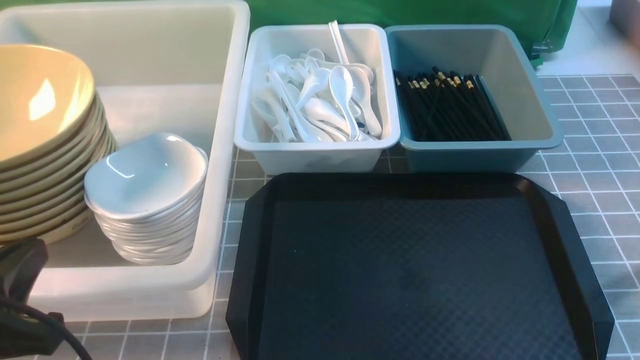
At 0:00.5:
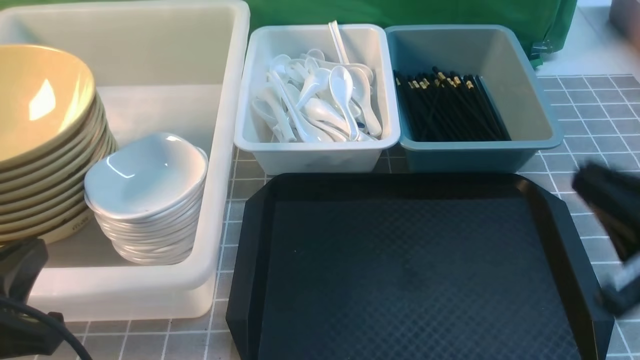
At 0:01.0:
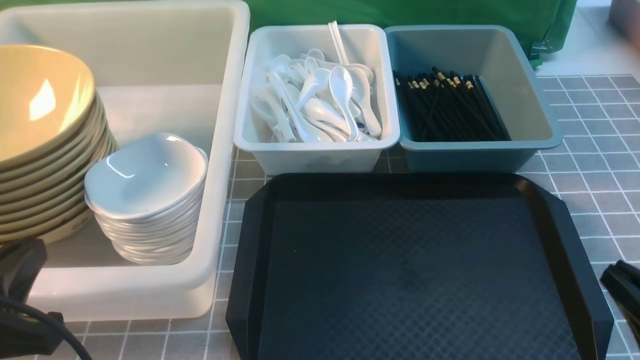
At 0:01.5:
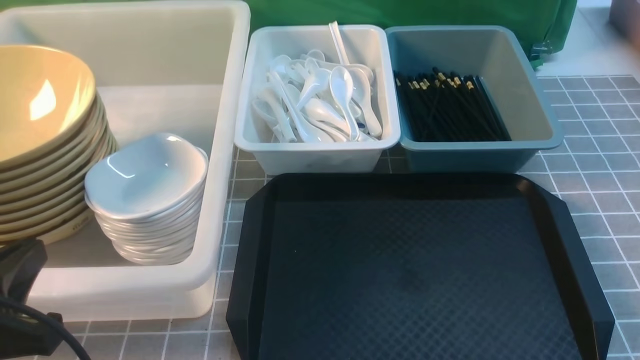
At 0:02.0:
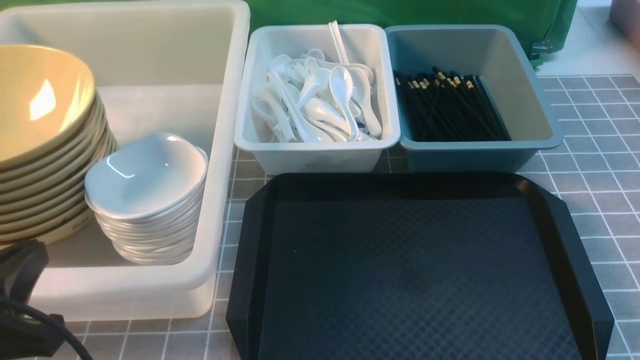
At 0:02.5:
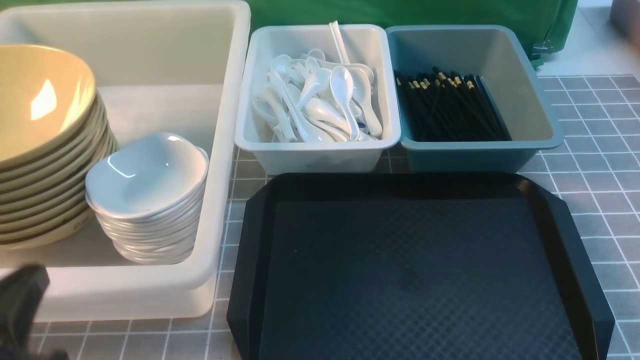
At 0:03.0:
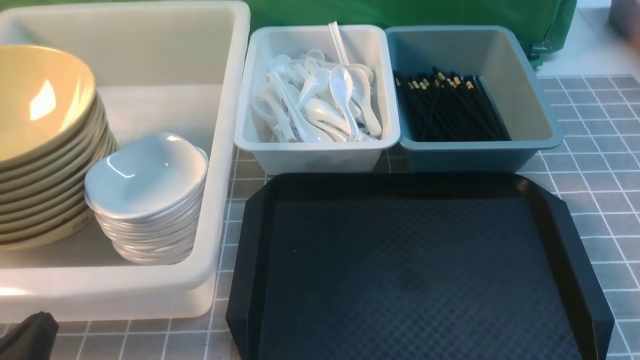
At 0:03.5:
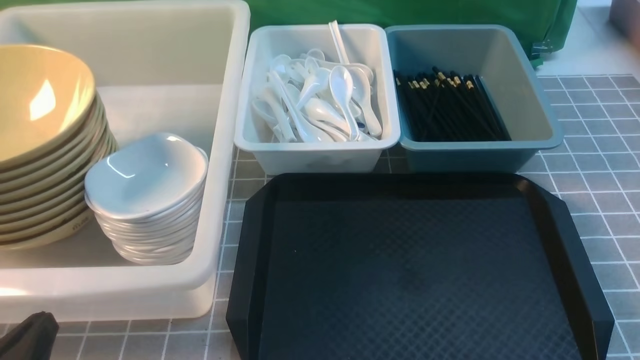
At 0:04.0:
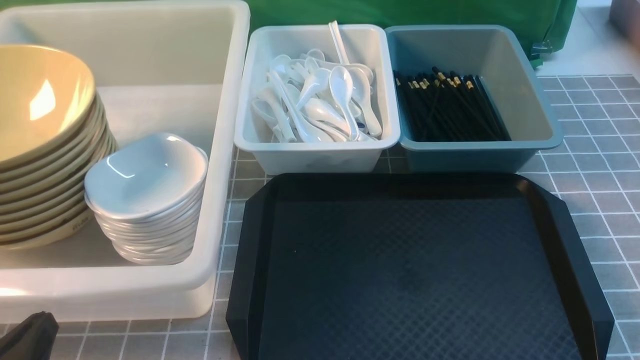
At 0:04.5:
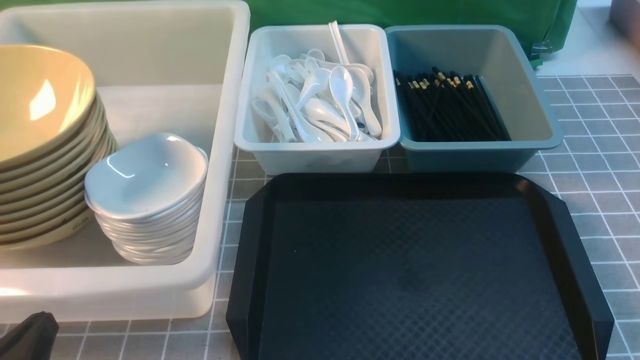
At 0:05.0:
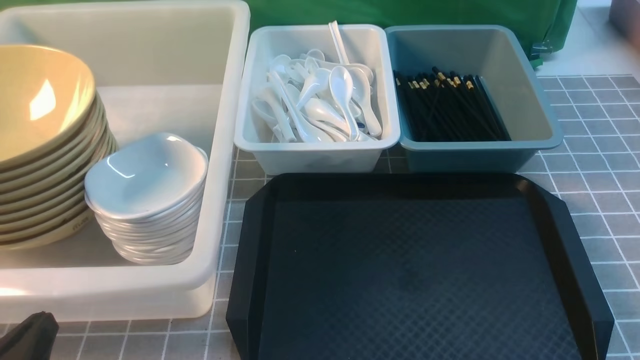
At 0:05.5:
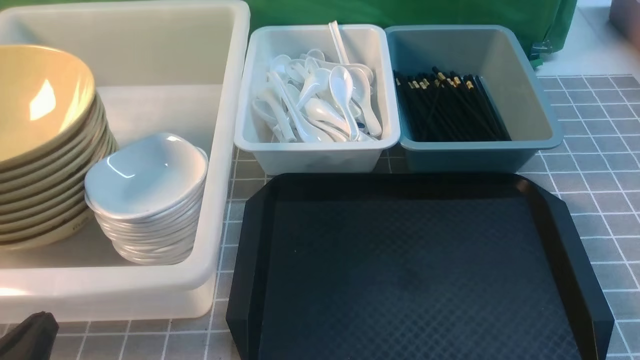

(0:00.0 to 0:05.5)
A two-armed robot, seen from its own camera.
Task of the whole recording: on grey table put chopsticks spoon bowls plates into blue grey white boxes.
0:02.0 - 0:03.5: The left gripper travels downward by some 10 cm.
0:03.5 - 0:05.5: Neither gripper changes place.
